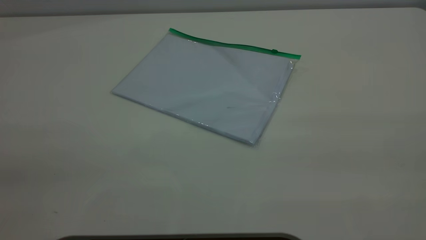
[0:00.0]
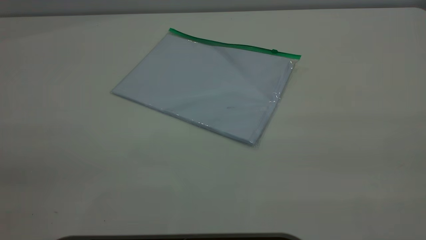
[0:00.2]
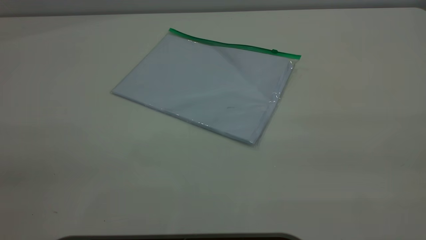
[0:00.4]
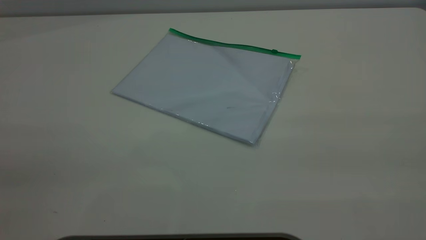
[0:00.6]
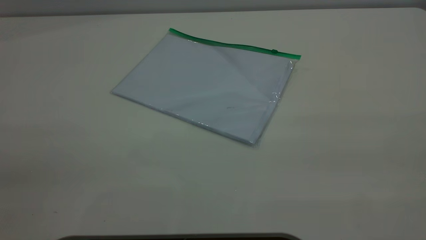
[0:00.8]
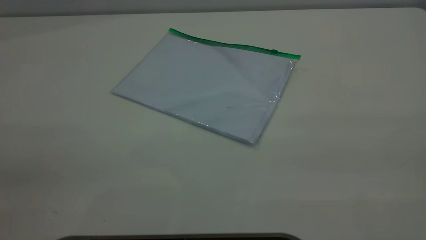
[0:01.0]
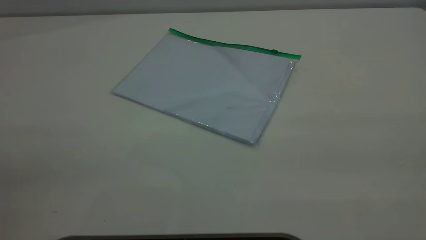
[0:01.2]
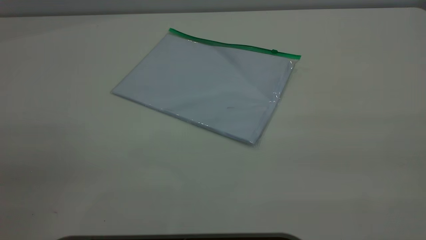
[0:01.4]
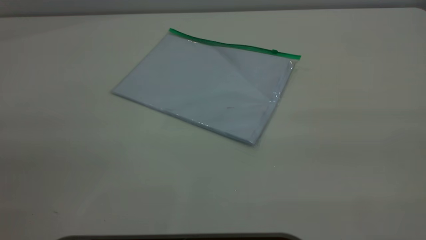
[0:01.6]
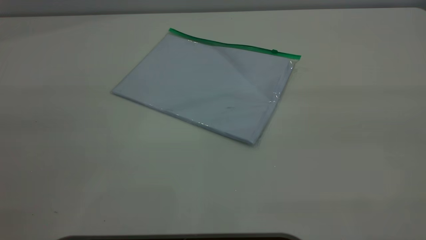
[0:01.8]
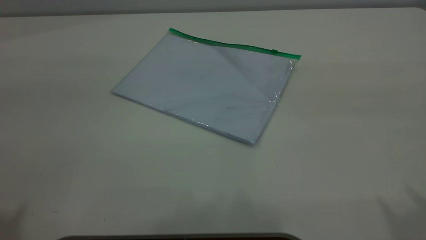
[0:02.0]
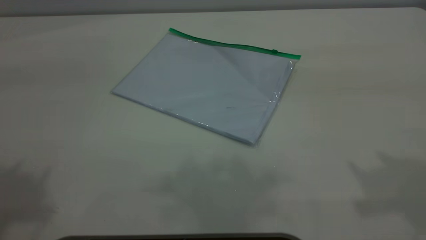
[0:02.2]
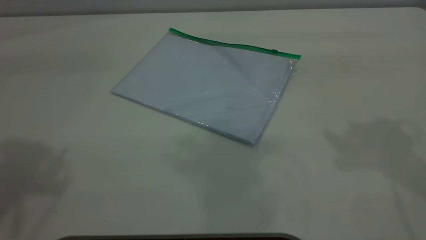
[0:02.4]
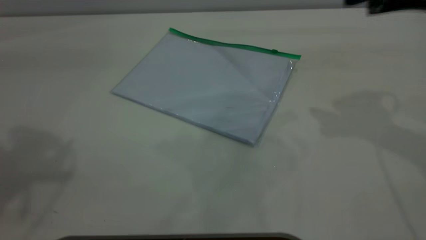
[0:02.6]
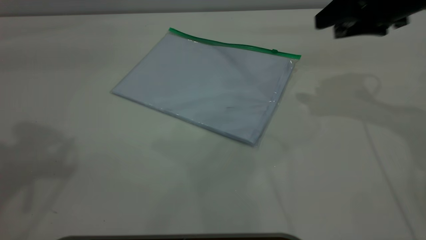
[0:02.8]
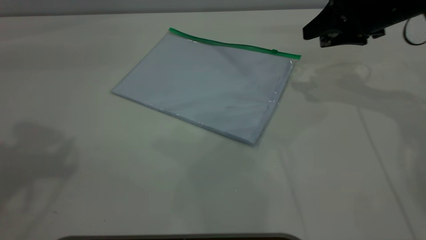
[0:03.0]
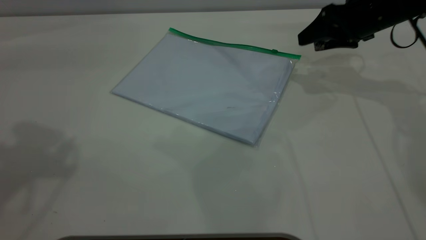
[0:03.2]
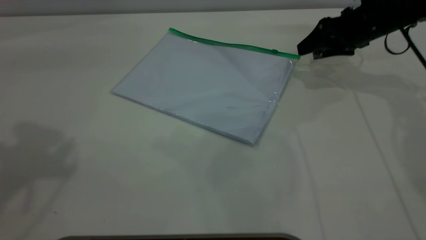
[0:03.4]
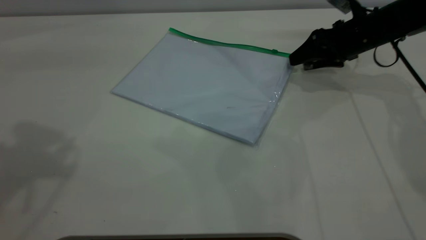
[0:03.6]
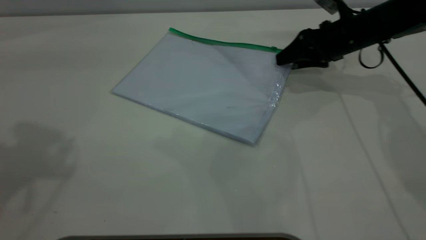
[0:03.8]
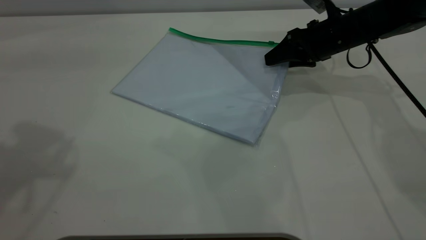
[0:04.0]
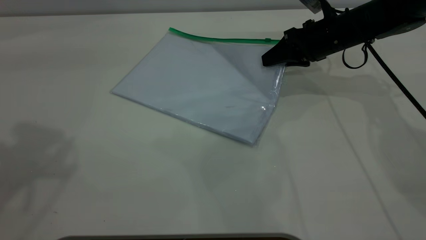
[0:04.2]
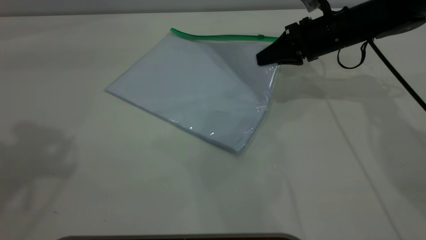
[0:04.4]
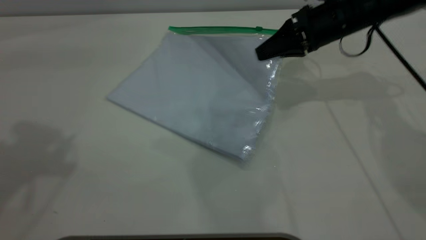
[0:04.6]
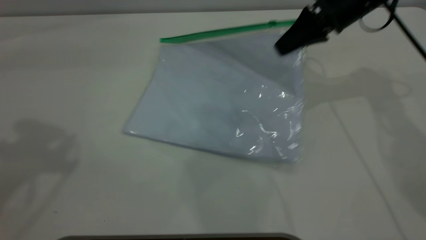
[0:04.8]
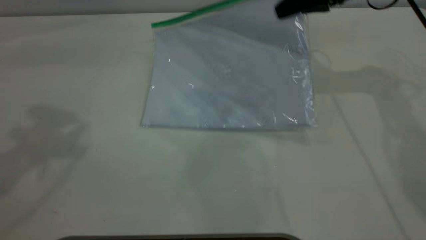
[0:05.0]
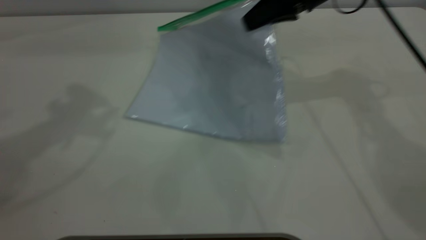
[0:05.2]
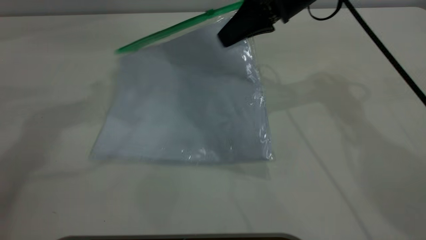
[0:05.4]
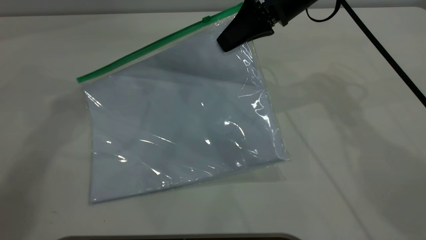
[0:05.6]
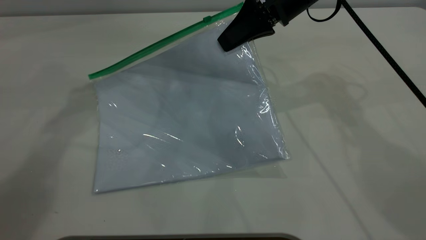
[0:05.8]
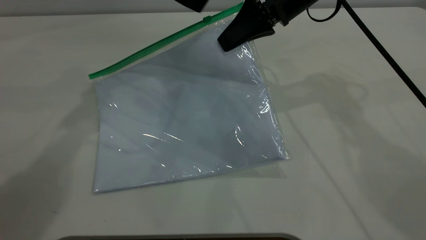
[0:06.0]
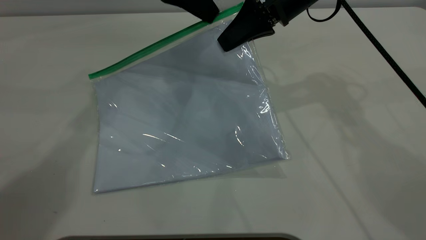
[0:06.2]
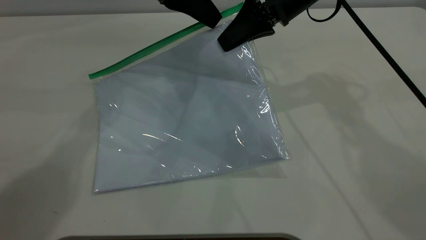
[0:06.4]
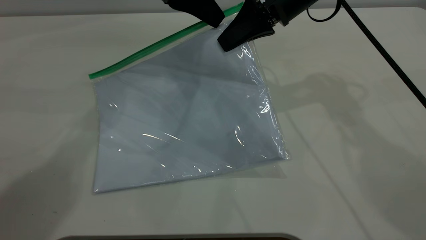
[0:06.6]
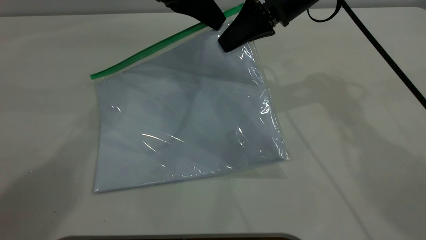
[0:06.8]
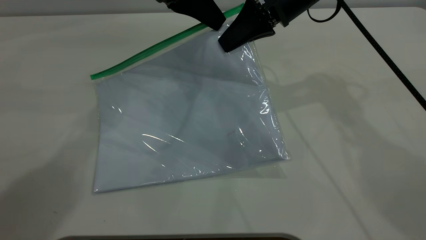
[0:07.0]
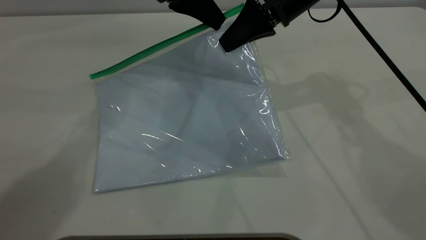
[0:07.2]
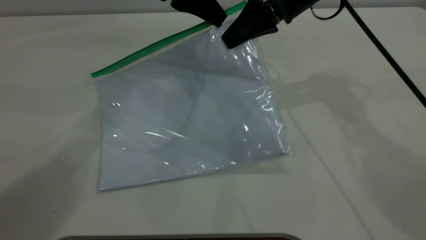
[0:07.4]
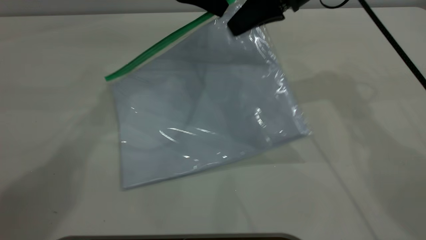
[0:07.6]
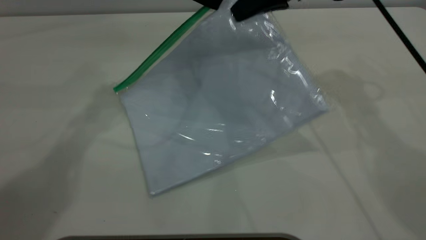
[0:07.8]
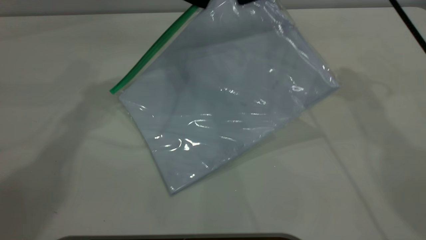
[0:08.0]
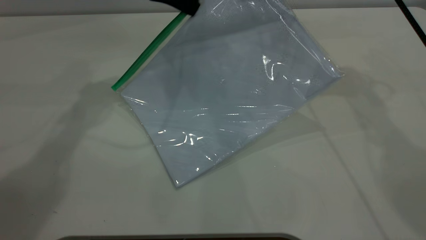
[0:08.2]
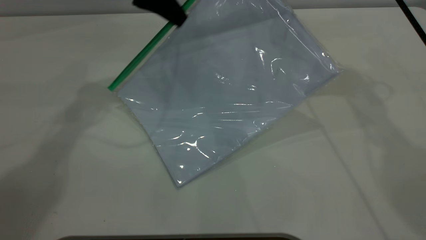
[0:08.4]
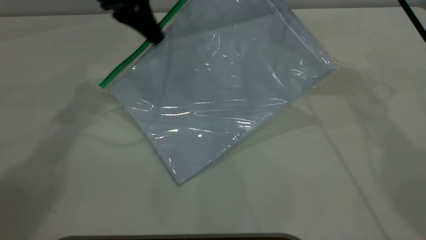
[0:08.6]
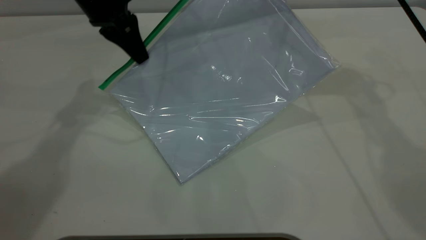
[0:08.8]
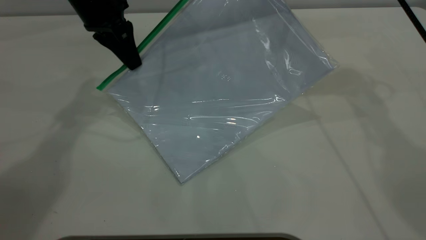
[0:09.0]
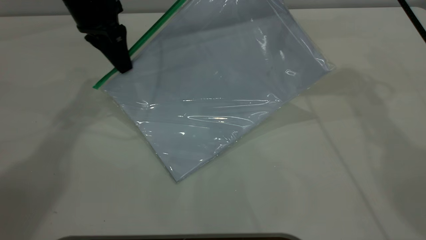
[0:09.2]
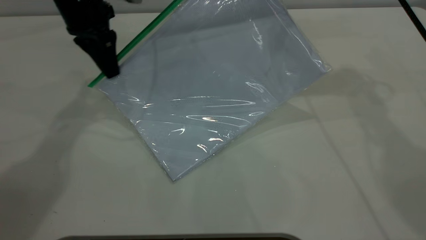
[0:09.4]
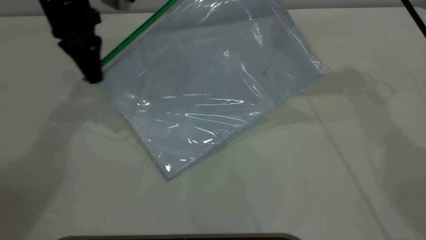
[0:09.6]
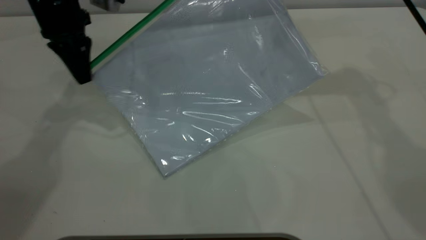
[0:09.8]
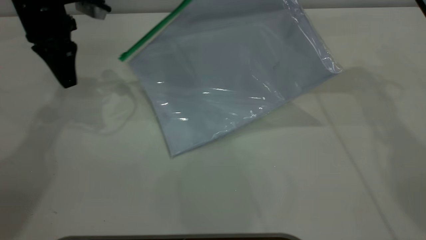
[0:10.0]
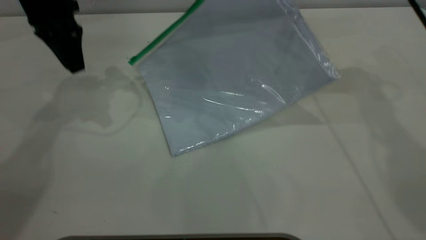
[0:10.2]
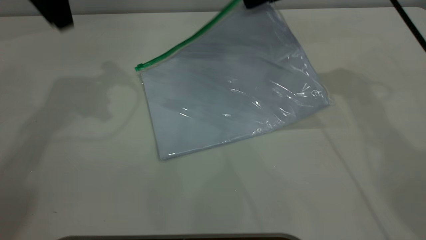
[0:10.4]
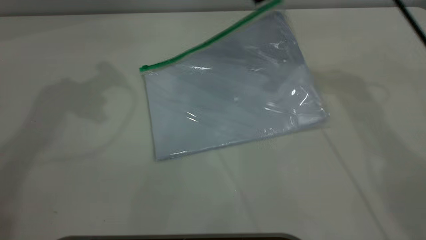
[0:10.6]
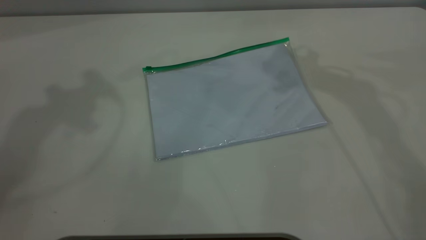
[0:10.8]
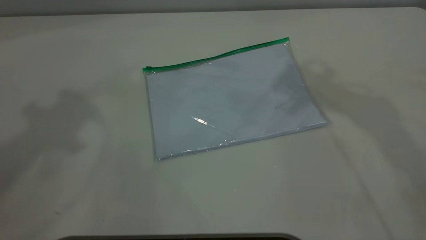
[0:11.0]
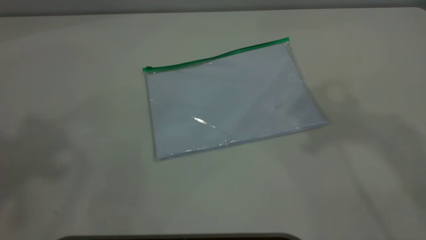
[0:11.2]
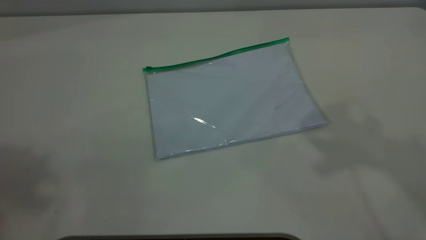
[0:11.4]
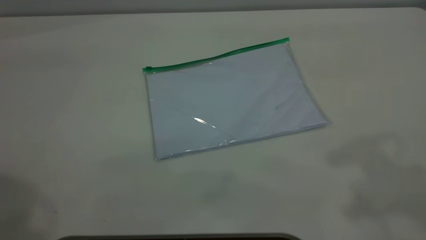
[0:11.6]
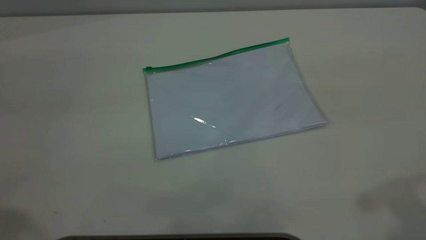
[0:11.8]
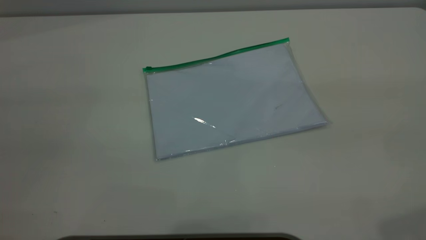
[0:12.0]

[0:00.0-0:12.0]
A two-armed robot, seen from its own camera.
Step, 0:00.0 to 0:04.2: Pick up the transparent plastic bag with the right gripper.
Step, 0:04.4 to 0:09.8: Pulling up the zipper on the transparent plastic bag with the left gripper to close it.
Step, 0:10.0 to 0:10.6: Place the transparent plastic bag.
0:01.6 to 0:03.0: The right gripper is displaced forward and downward by approximately 50 cm.
0:03.0 to 0:04.4: The right gripper travels to the left and downward by about 10 cm, and closes.
0:04.4 to 0:06.0: The right gripper is displaced upward and to the left by some 10 cm; the left gripper is displaced forward, to the right and downward by about 25 cm.
0:06.0 to 0:07.6: The left gripper closes up.
0:07.6 to 0:09.0: The left gripper travels to the left by about 10 cm.
0:09.0 to 0:10.4: The left gripper shifts about 10 cm upward and to the left, and opens its fingers. The right gripper opens its fingers.
0:10.4 to 0:12.0: Both grippers travel together backward, about 35 cm.
